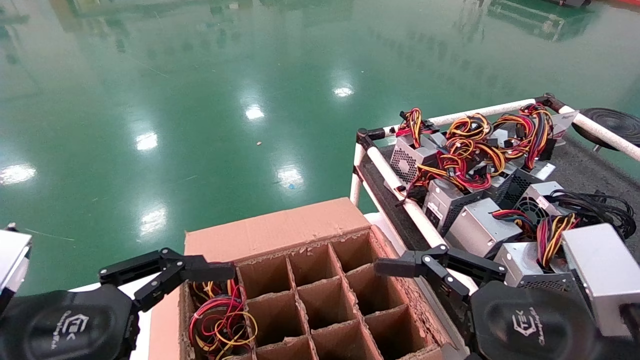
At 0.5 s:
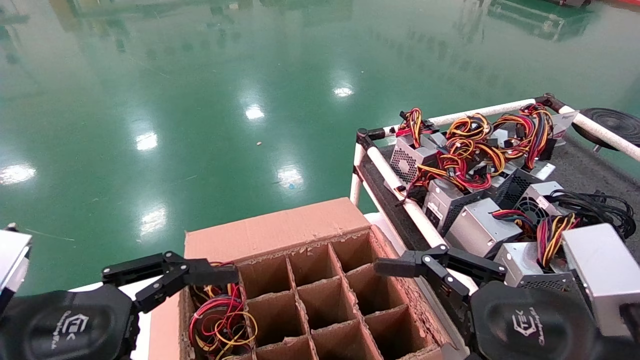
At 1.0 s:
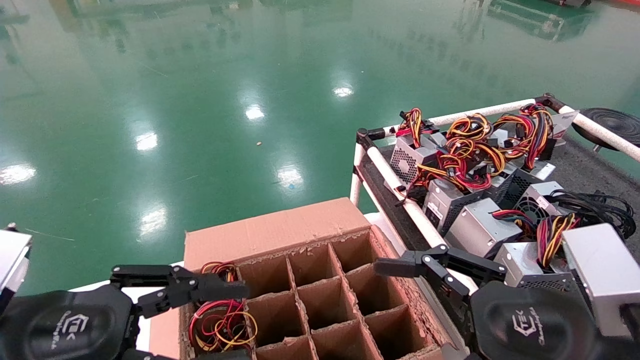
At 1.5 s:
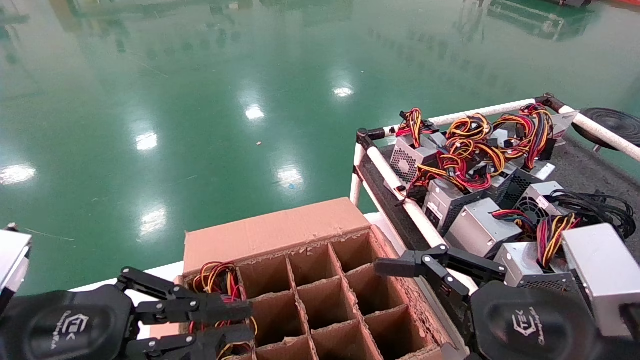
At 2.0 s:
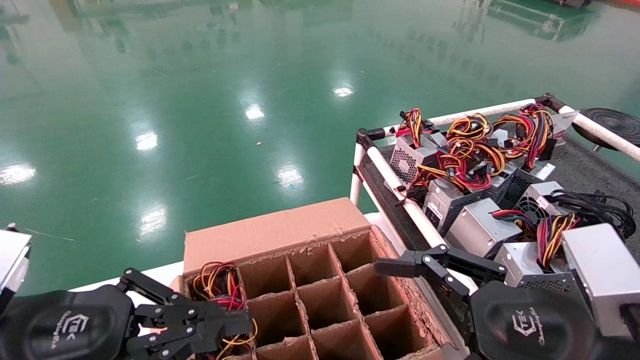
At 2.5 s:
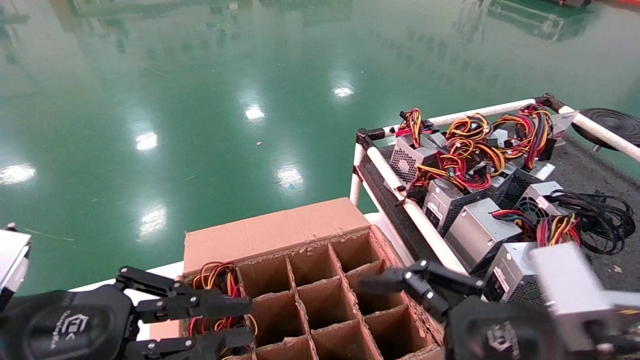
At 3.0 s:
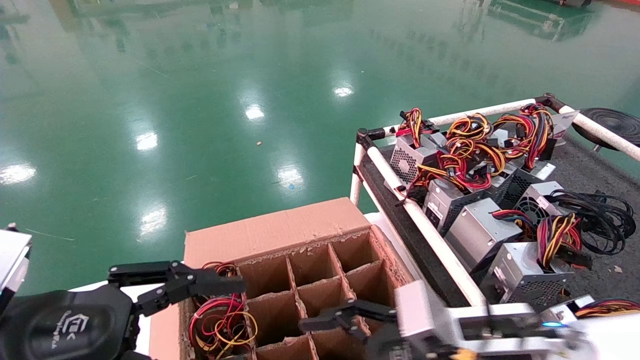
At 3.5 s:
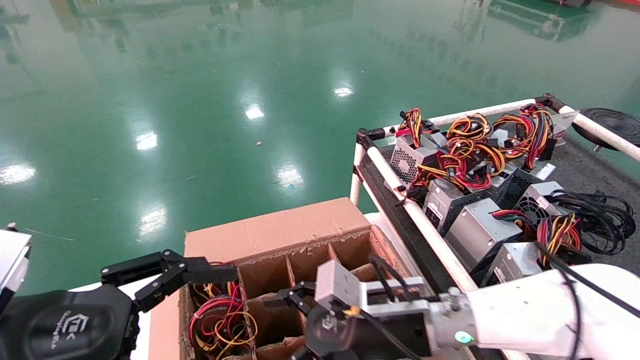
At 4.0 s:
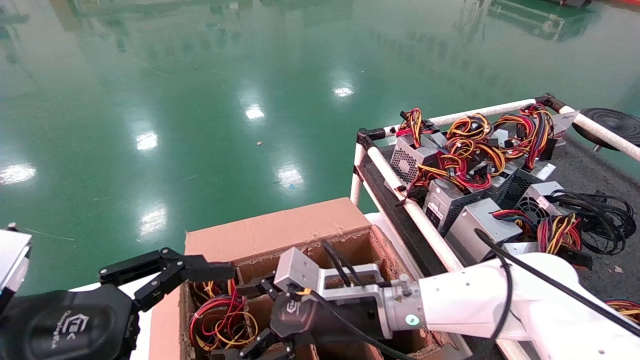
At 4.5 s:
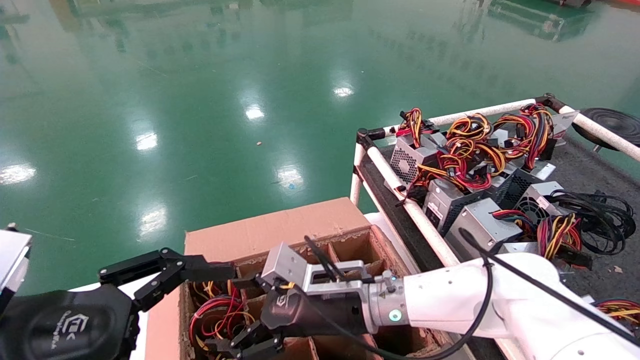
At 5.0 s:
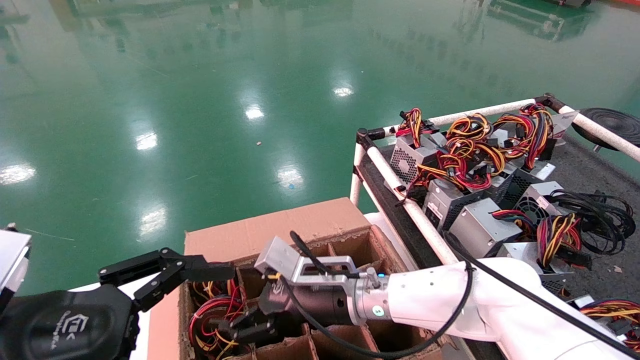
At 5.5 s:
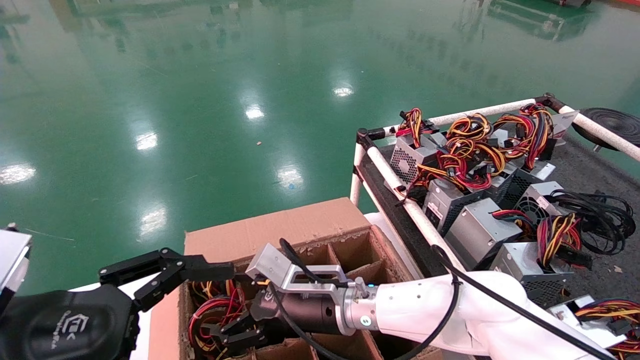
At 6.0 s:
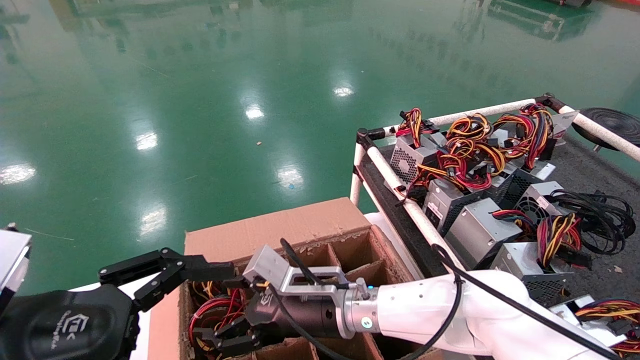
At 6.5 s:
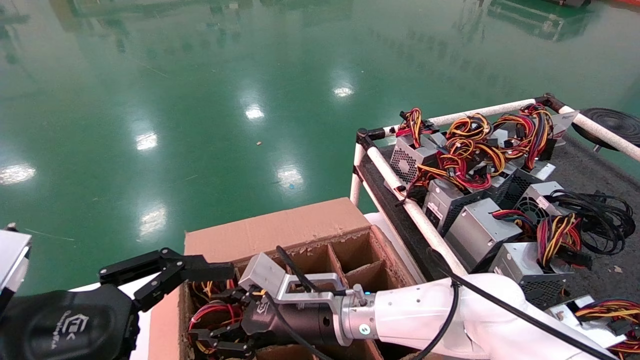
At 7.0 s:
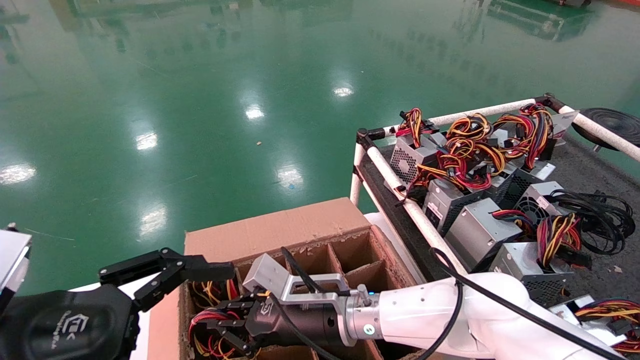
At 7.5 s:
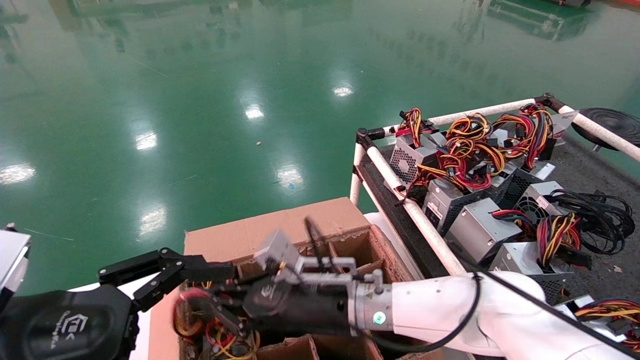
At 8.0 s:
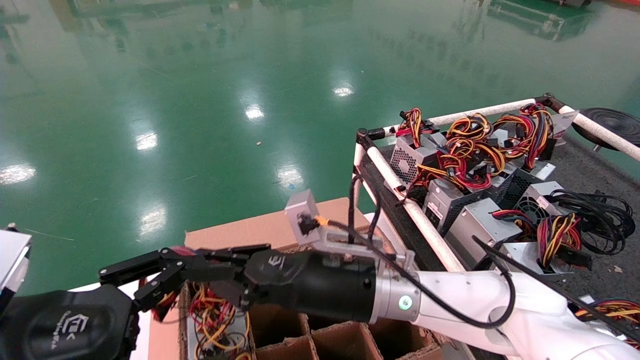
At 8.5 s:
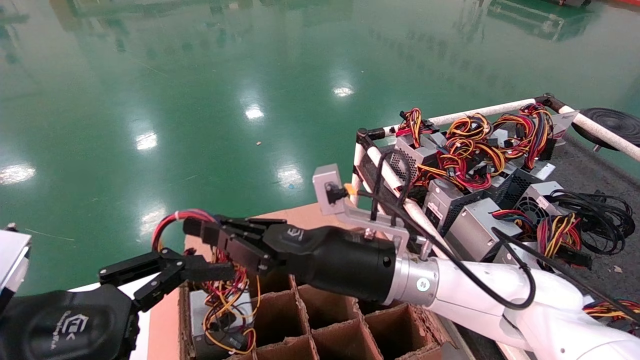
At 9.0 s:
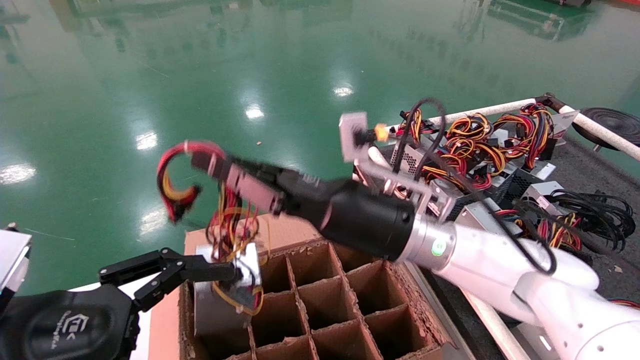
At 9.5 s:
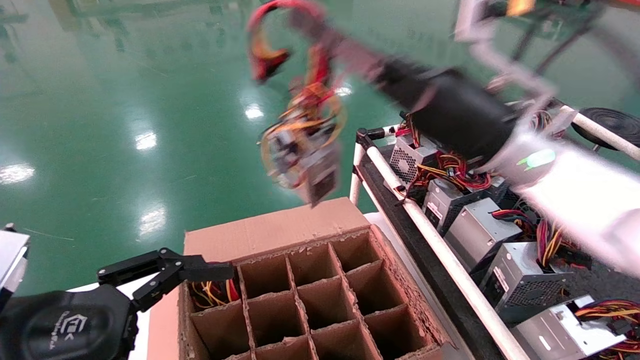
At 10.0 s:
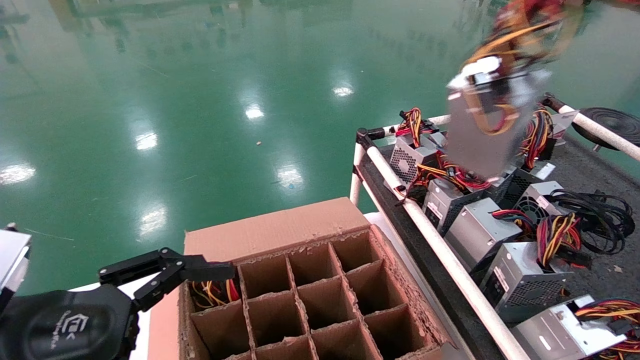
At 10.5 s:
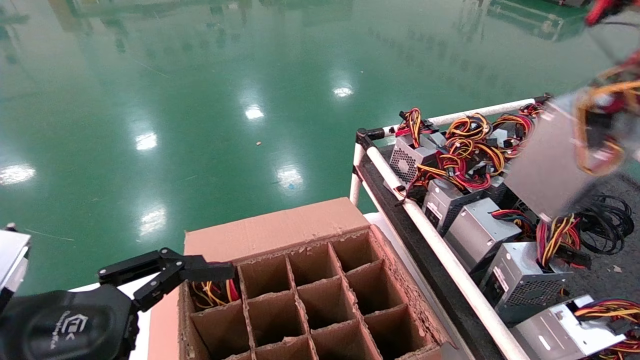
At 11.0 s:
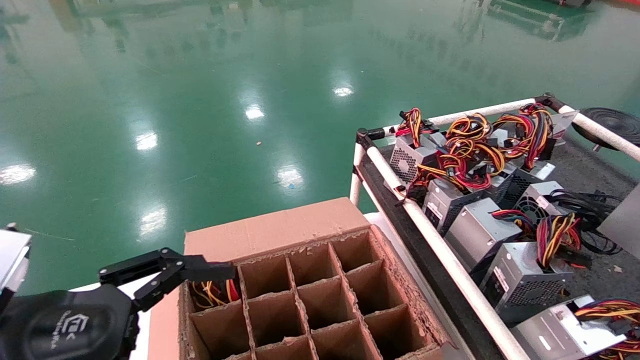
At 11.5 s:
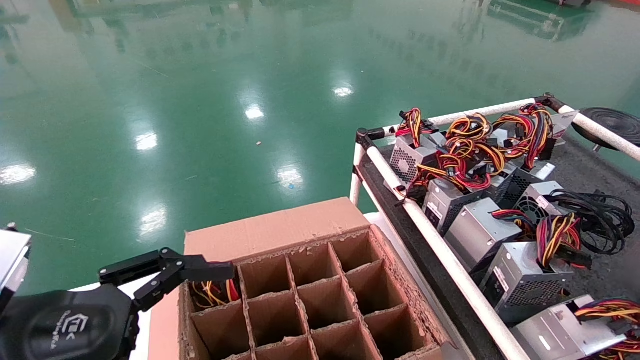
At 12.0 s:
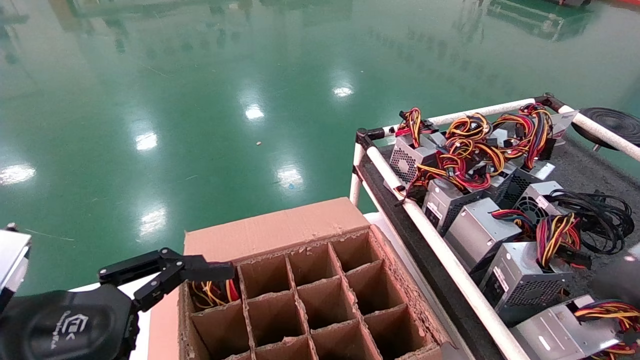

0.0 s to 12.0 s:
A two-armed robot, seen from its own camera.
Step, 3.0 to 7.0 s: Grab and lift the power supply from the large box.
0.0 to 2.0 s: The left gripper closes up.
2.0 to 4.0 s: The right gripper shifts approximately 25 cm forward, to the left and downward; the left gripper opens its fingers.
4.0 to 6.0 s: The right gripper moves some 5 cm.
6.0 to 8.0 s: The right gripper travels upward by roughly 5 cm, and closes its fingers.
8.0 to 10.0 s: The right gripper travels to the right and upward by some 40 cm.
10.0 to 12.0 s: The right gripper is displaced downward, to the right and backward by about 30 cm.

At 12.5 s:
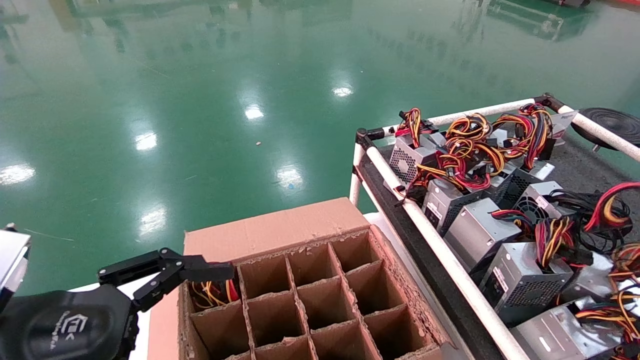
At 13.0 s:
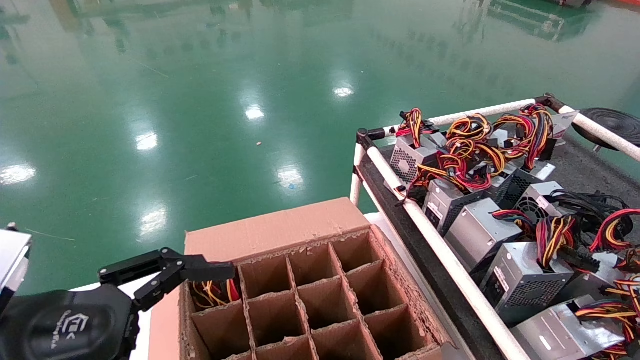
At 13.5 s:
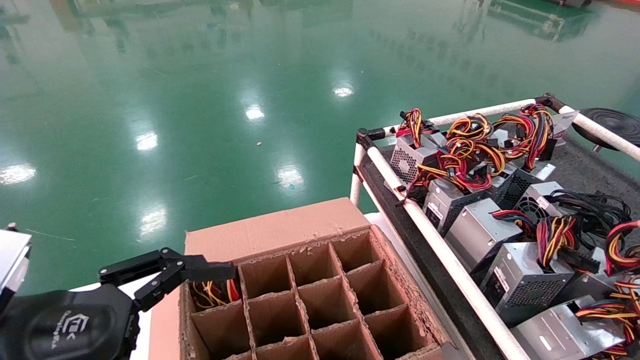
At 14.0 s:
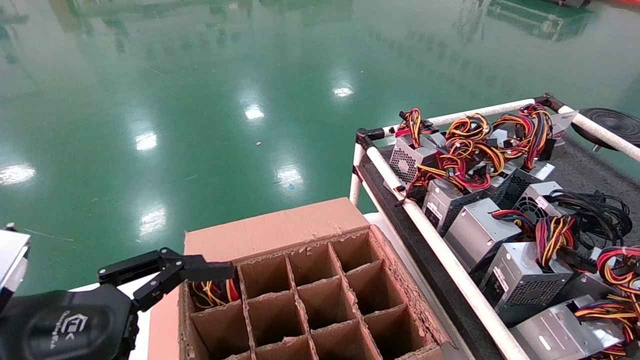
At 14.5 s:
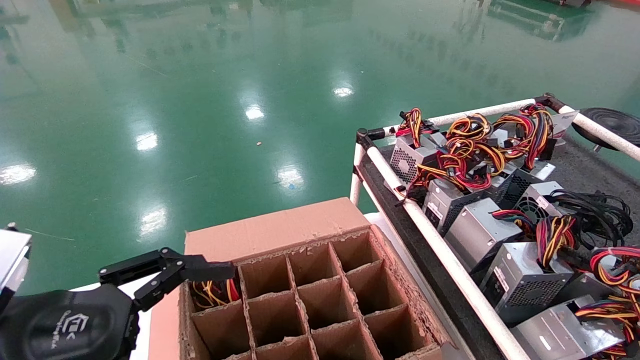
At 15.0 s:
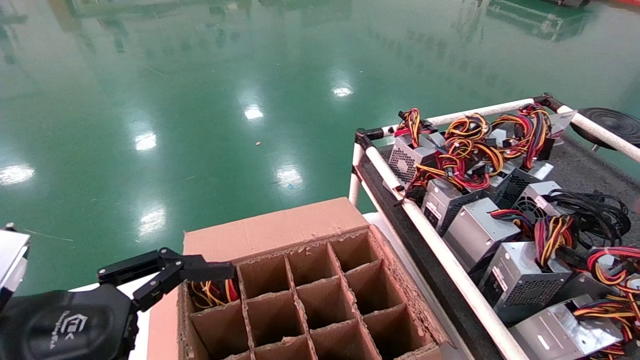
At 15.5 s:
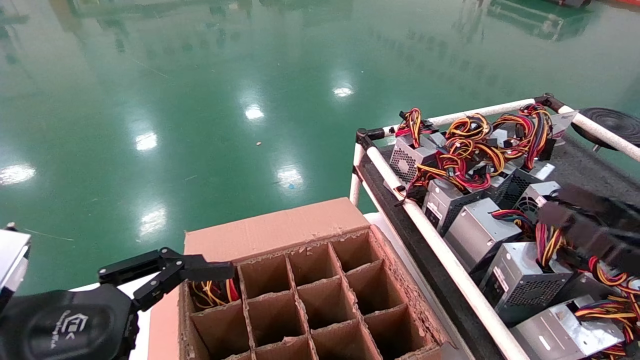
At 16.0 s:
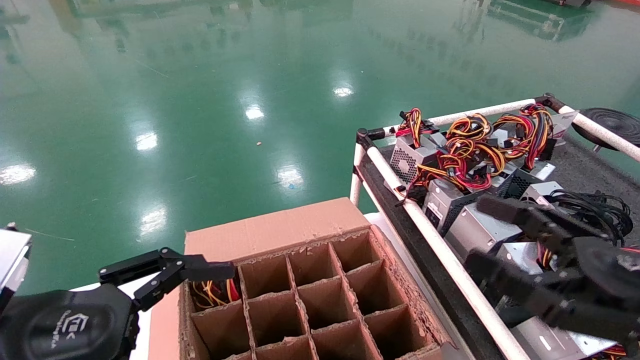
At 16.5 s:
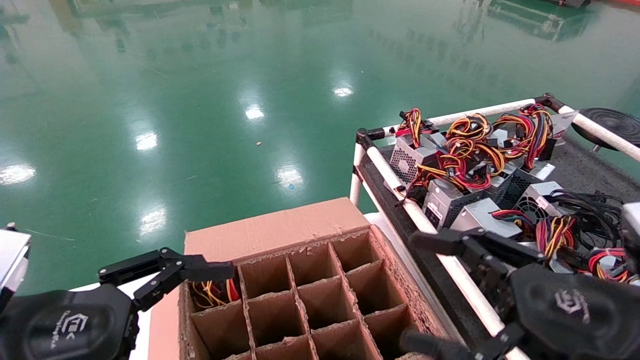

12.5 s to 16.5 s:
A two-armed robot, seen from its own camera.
12.5 to 14.5 s: The right gripper opens up.
14.5 to 16.5 s: The right gripper shifts approximately 25 cm to the left.
